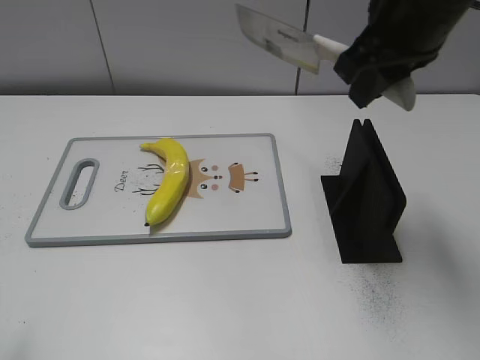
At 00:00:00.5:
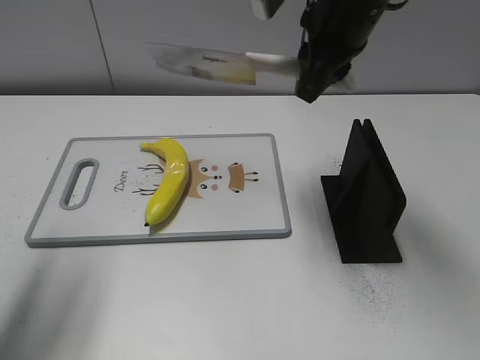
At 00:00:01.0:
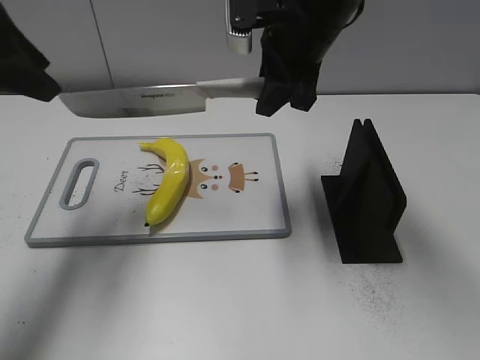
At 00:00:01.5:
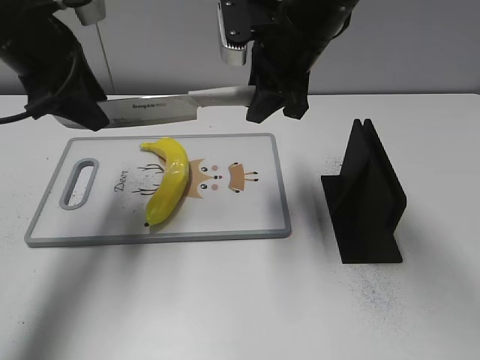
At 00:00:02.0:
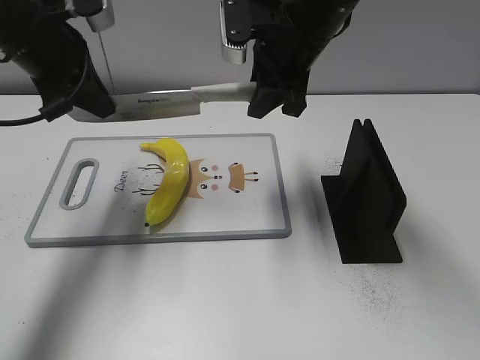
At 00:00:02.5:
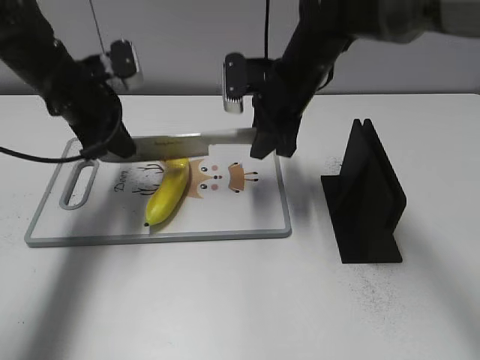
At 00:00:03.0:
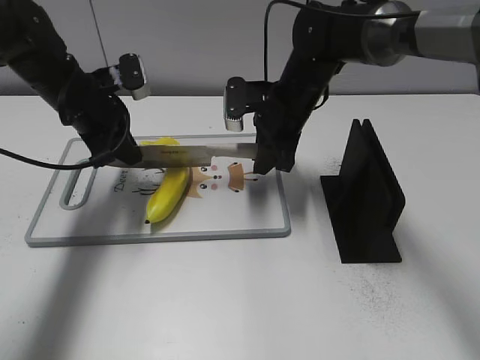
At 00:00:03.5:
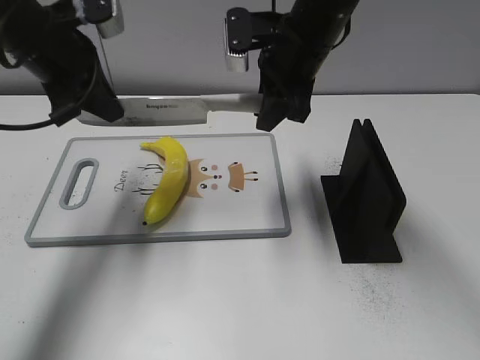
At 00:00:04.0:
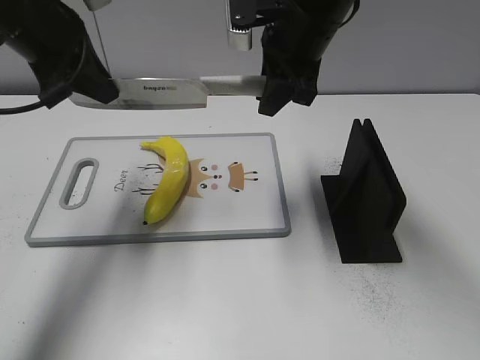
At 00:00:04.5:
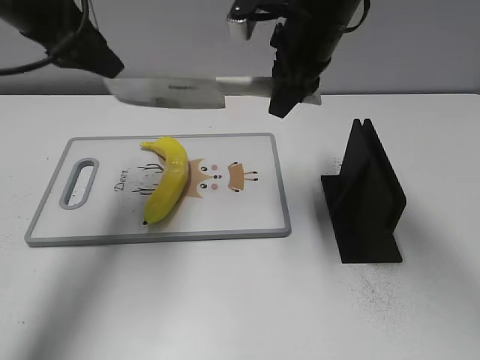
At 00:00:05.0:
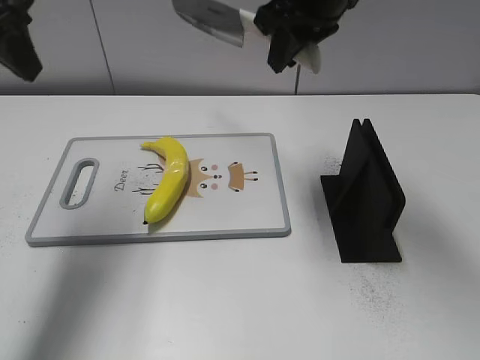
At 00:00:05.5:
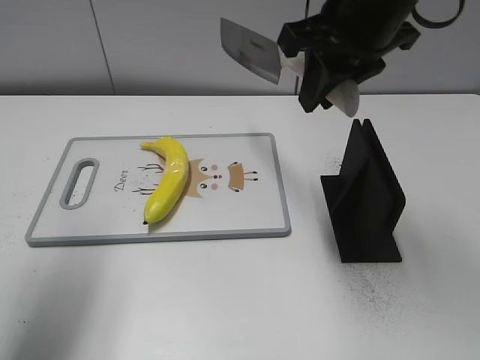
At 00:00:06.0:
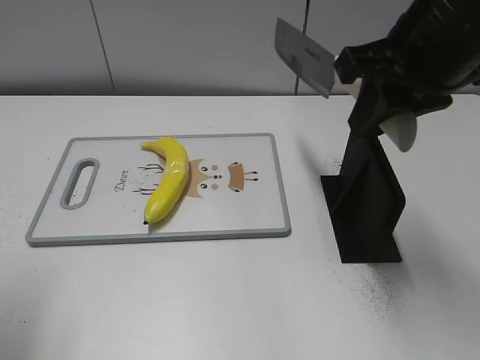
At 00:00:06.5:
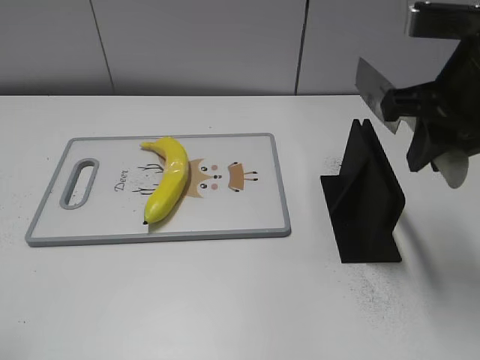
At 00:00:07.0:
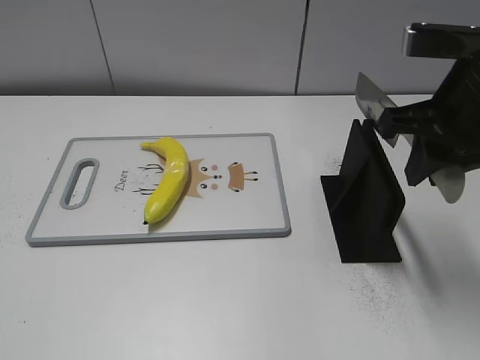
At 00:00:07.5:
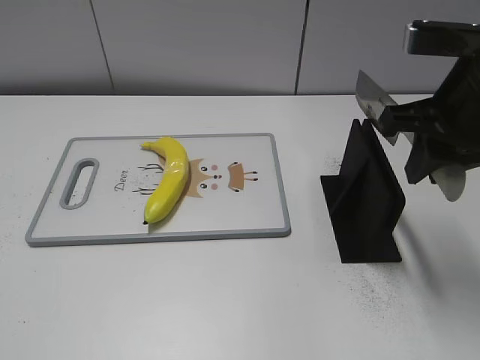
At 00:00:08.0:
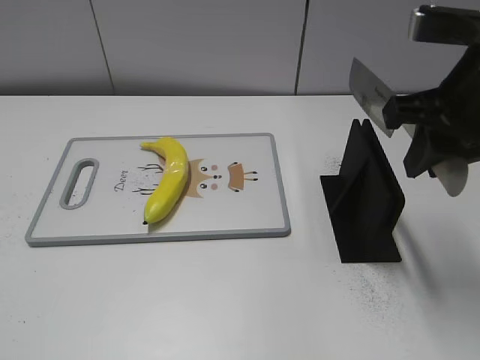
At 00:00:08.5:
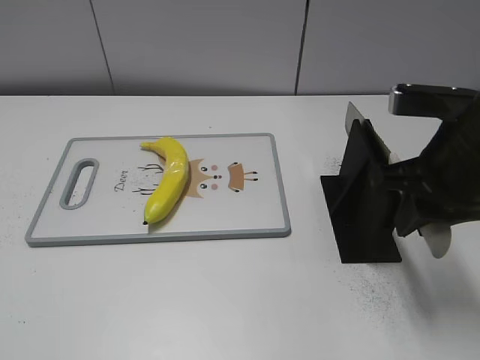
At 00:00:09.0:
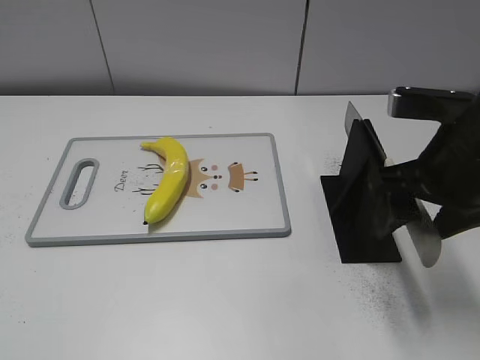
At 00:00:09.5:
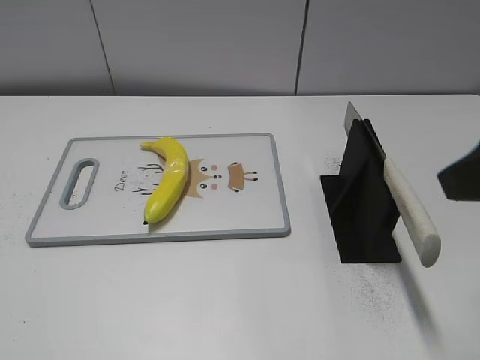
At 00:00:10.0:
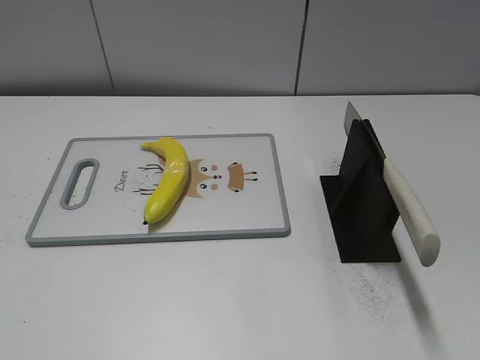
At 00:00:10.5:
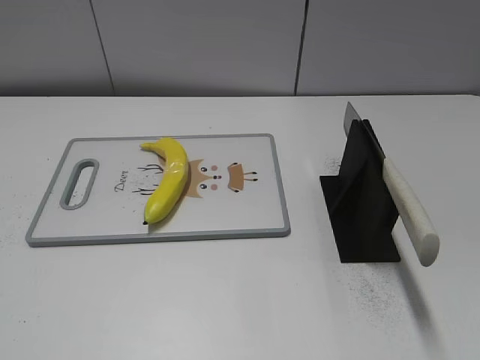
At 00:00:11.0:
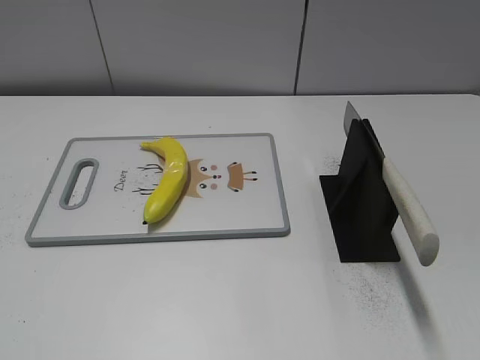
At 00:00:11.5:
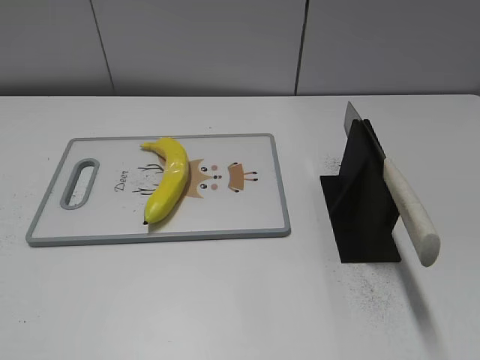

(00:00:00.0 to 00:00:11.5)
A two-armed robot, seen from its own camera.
Task of the whole recording: cut plastic banana.
Step, 00:00:00.0 - 00:00:03.5: Lift the knife with your right hand.
Step, 00:00:04.0 - 00:00:05.0: Cut the banana with your right hand.
Step, 00:00:05.5 - 00:00:06.0: Lift the knife with your right hand.
Step, 00:00:06.5 - 00:00:11.5: Place the knife on the storage rack with your right hand.
00:00:00.0 - 00:00:02.0: The left gripper shifts some 30 cm forward, and closes up. The right gripper travels forward, to the left and downward by some 15 cm.
00:00:02.0 - 00:00:04.0: The right gripper travels downward and back again, about 10 cm each way. Meanwhile the left gripper moves roughly 10 cm downward and comes back.
00:00:04.0 - 00:00:06.0: The left gripper travels backward and to the left by roughly 20 cm, and opens its fingers, while the right gripper shifts about 15 cm backward, to the right and upward.
00:00:06.0 - 00:00:07.5: The right gripper shifts by roughly 5 cm; the left gripper goes some 20 cm backward.
00:00:07.5 - 00:00:09.5: The right gripper goes roughly 10 cm backward, and opens.
00:00:09.5 - 00:00:11.5: The right gripper is displaced backward and to the right by some 20 cm.
